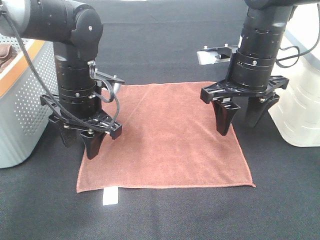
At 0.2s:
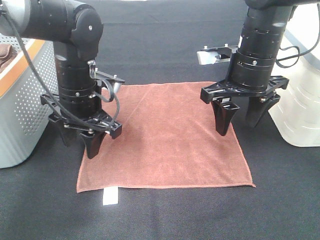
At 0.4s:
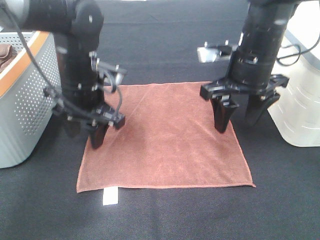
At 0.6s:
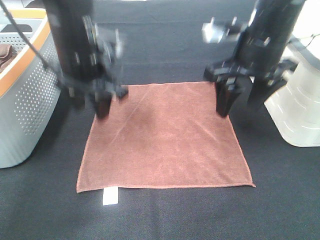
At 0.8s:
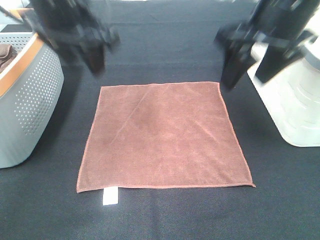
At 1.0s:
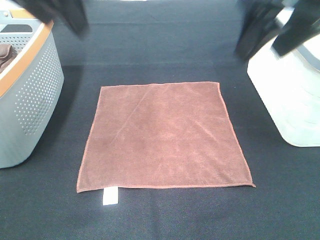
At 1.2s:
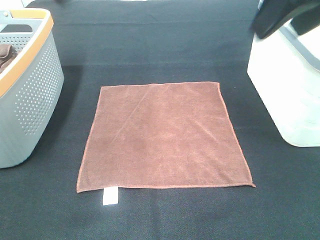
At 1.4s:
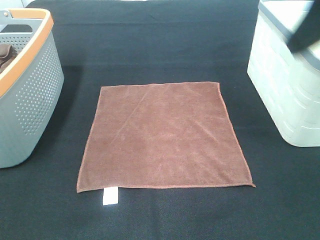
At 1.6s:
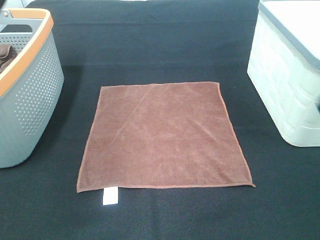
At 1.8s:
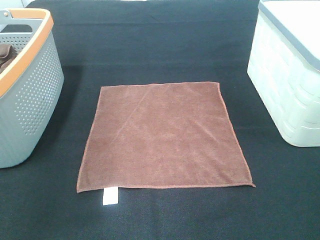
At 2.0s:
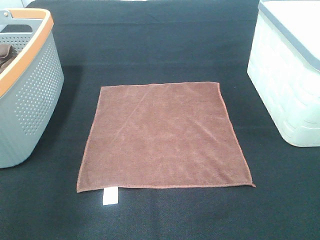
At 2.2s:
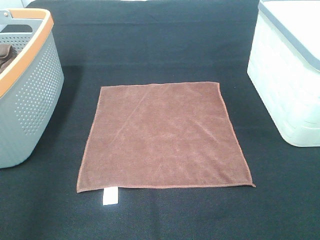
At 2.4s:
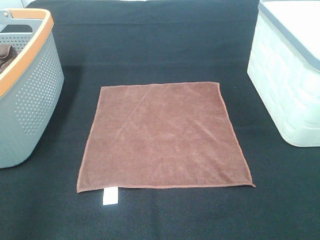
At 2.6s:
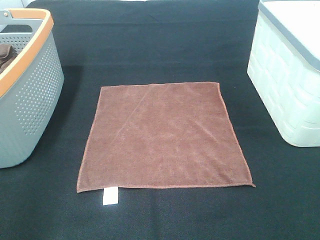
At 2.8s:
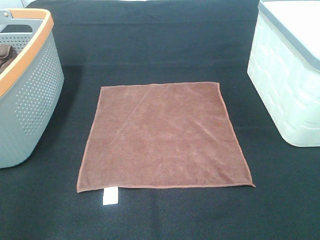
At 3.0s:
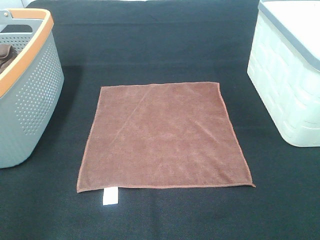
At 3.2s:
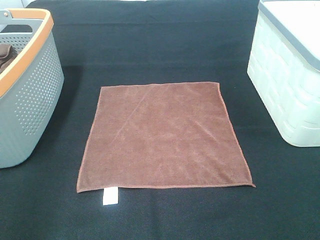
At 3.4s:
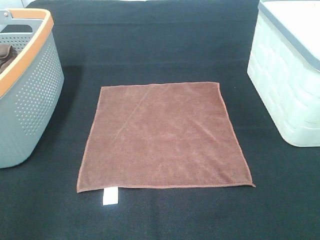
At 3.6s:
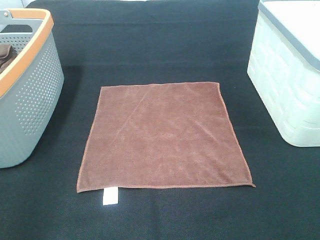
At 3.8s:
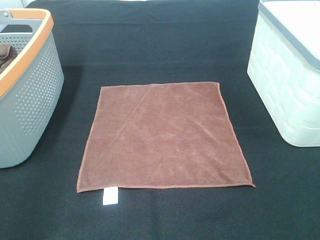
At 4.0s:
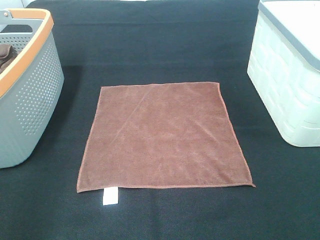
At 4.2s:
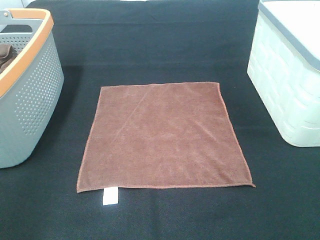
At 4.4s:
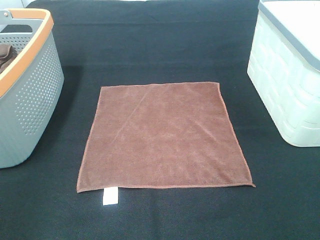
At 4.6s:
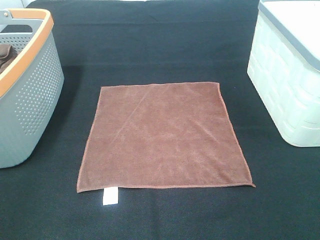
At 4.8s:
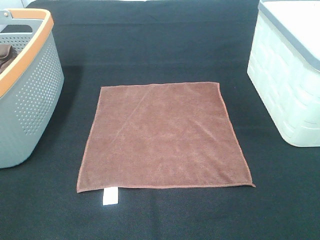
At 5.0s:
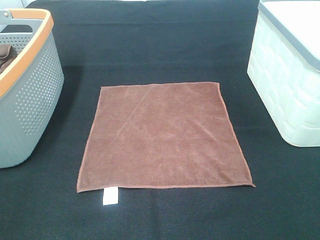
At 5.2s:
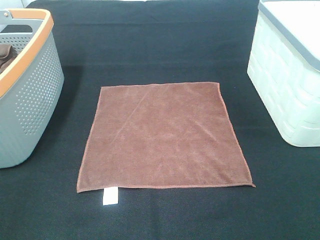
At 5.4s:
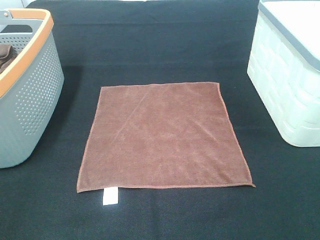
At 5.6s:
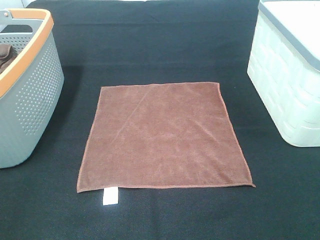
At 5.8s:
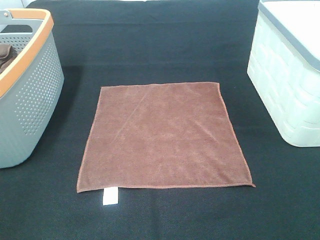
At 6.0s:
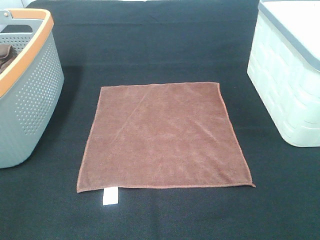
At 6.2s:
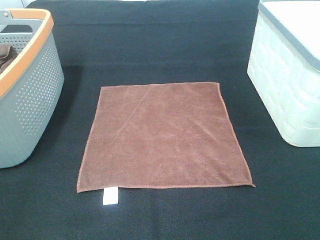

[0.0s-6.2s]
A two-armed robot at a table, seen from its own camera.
Task of the whole recording: Remove the towel and place it.
0.0s to 1.6s: The left gripper shifts approximately 30 cm upward and backward. Meanwhile the right gripper goes about 25 cm backward and upward.
1.6s to 3.2s: The right gripper travels backward and downward by some 15 cm.

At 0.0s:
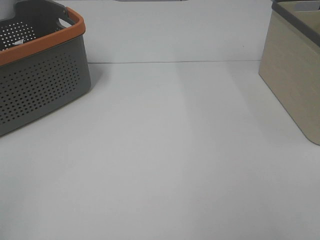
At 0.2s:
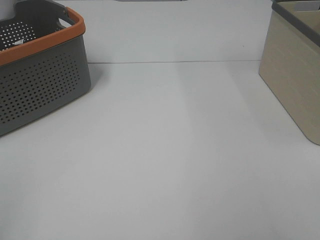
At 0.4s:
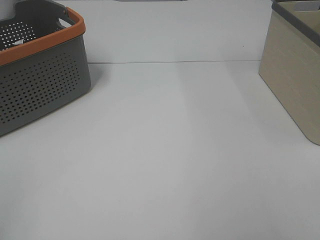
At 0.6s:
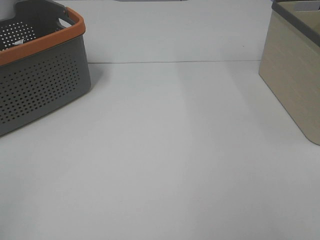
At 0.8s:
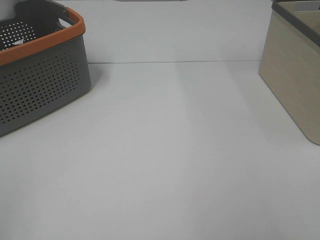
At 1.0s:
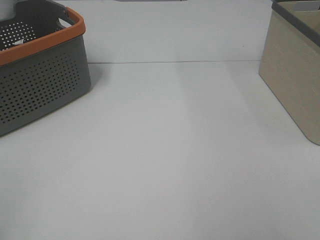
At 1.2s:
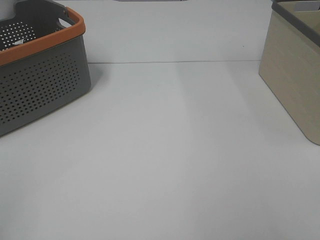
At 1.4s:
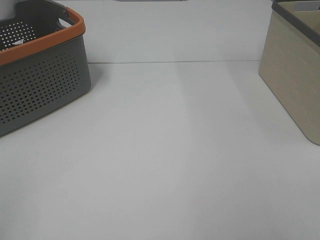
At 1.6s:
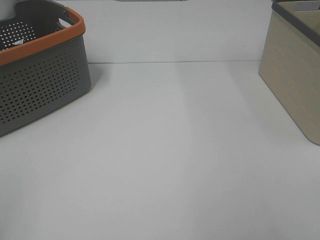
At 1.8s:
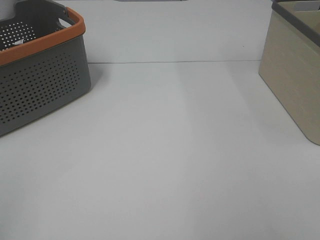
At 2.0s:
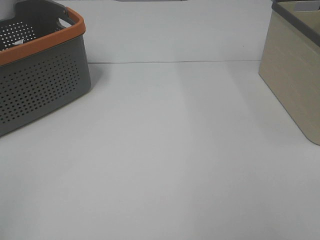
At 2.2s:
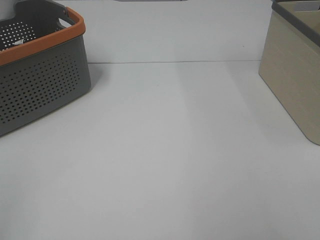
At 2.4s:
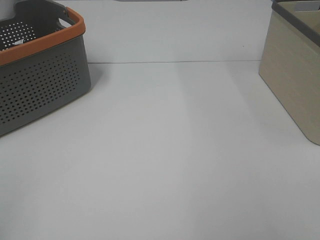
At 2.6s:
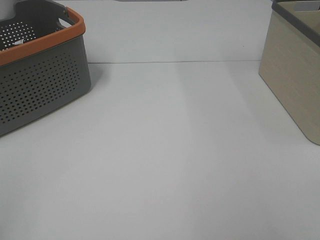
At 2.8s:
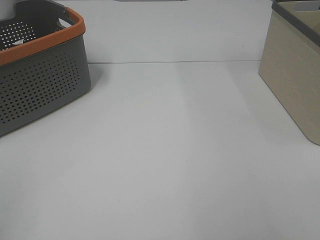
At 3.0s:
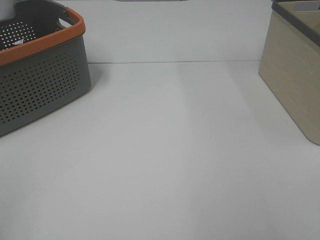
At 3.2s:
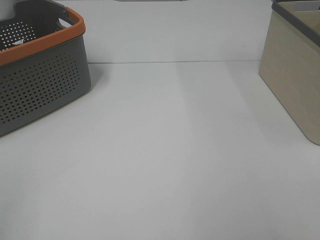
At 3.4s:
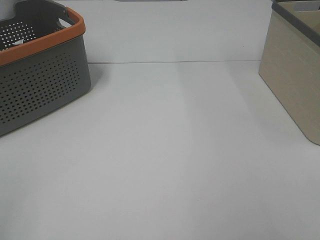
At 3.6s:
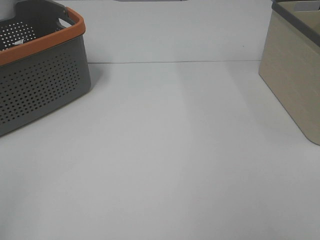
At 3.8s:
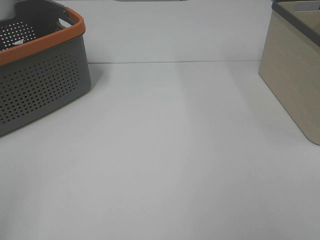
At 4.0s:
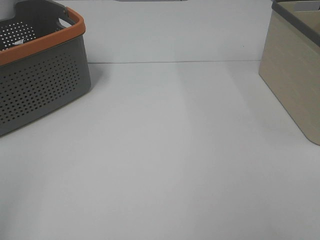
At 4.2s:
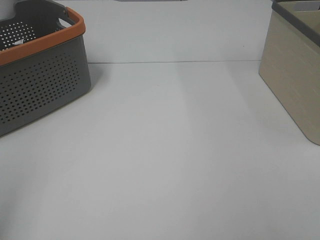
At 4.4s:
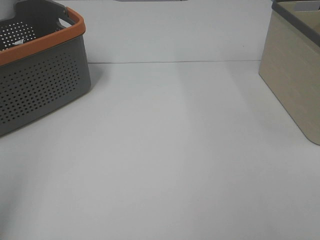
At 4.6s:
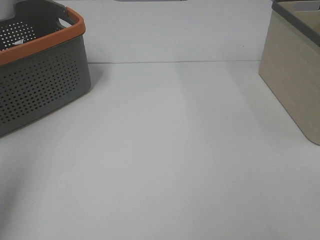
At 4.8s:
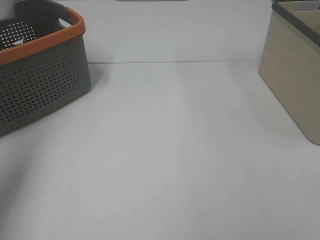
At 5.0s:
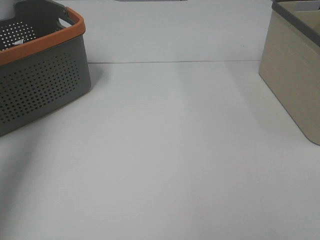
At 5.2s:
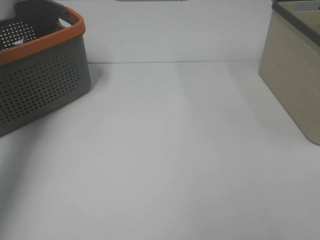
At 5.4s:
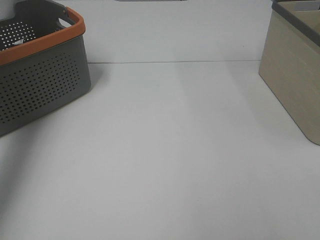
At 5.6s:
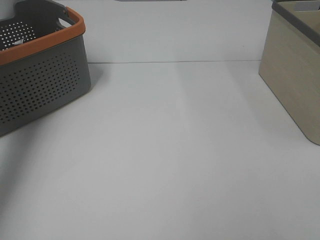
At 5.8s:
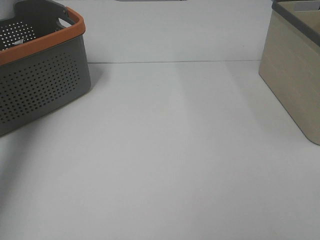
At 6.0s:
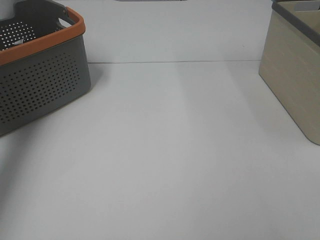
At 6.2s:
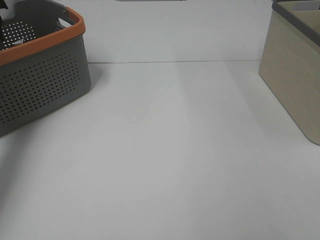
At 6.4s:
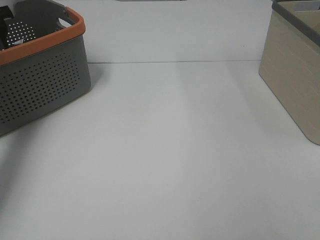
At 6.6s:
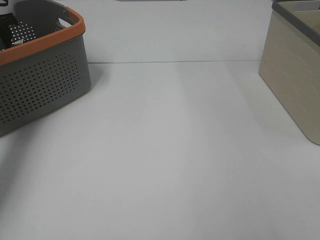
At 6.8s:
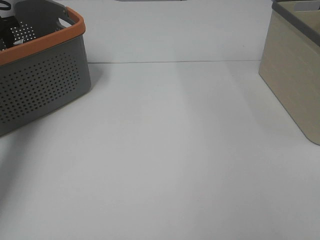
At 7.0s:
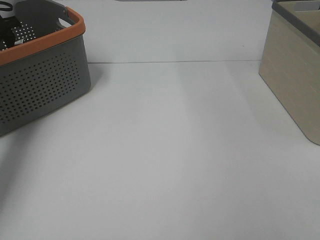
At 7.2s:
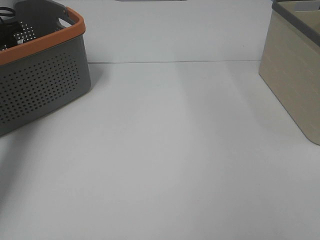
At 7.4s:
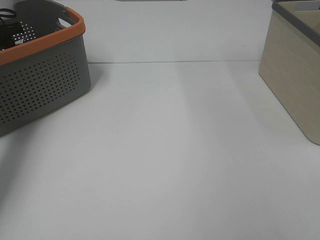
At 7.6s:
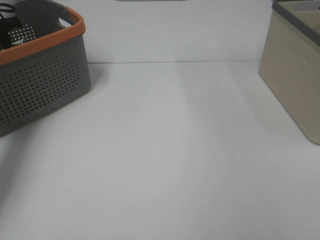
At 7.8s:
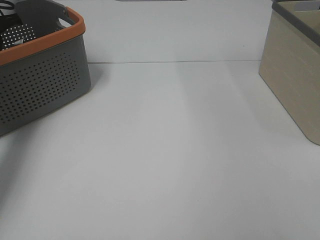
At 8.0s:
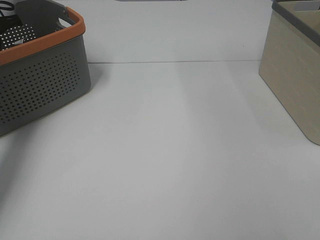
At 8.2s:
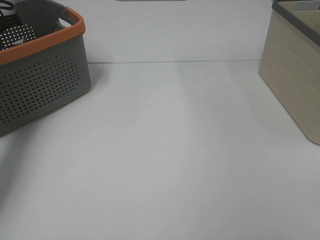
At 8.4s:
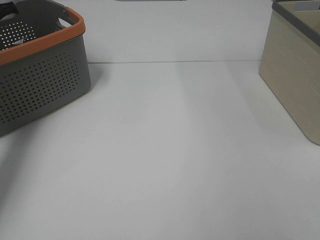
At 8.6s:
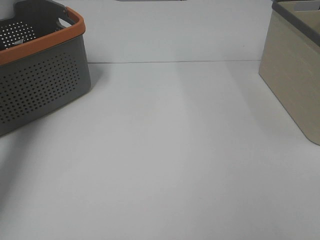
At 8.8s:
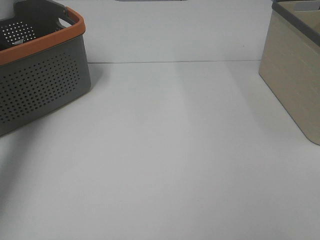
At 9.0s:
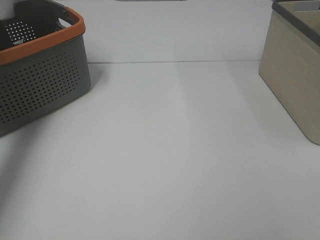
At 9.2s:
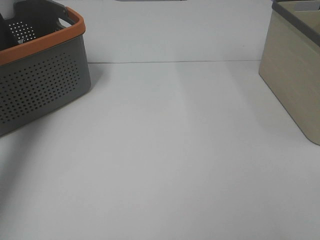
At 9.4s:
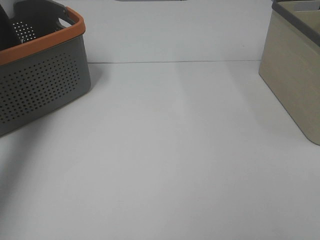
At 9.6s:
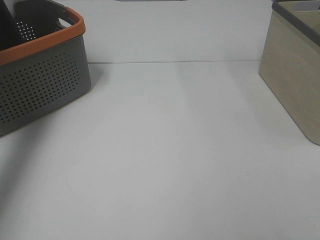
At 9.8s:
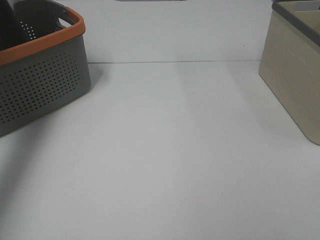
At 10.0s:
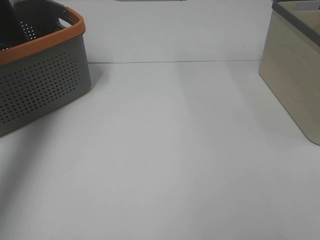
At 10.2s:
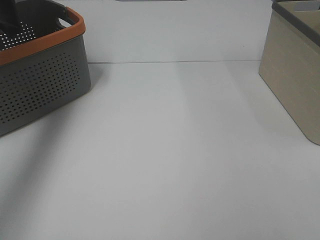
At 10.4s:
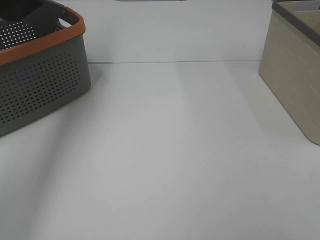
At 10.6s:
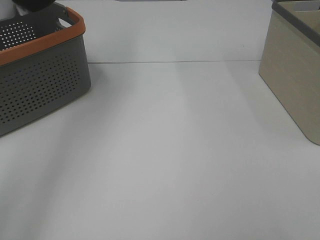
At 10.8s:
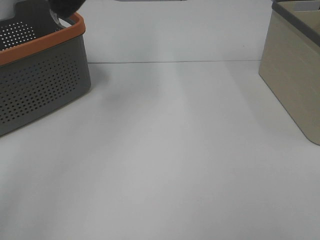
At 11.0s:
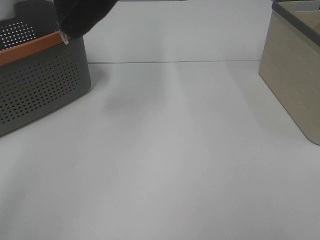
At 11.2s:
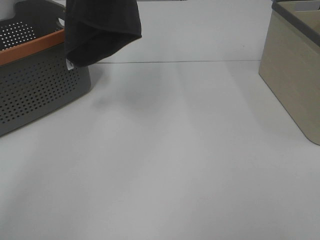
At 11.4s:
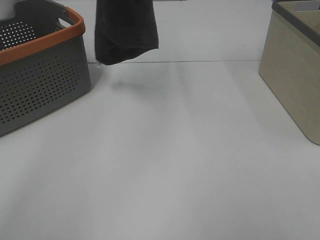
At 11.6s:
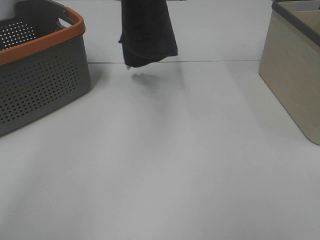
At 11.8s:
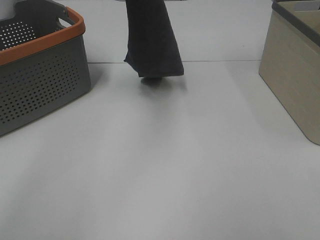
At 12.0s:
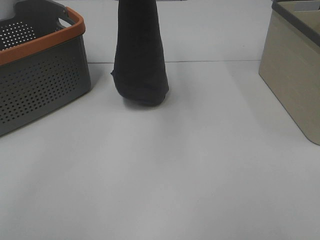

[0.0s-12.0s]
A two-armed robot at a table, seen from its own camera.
Task of the whole recording: Remove the towel and place it.
0.0s to 3.0s: The two grippers keep their place.
4.4s to 6.0s: The left gripper shifts approximately 35 cm forward.
9.0s to 10.4s: The left gripper travels upward, backward and to the right by approximately 30 cm.
10.4s to 12.0s: The left gripper goes some 30 cm to the right and downward.

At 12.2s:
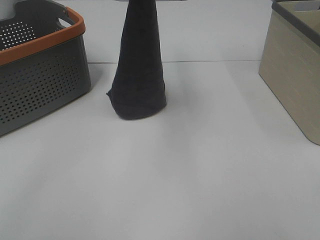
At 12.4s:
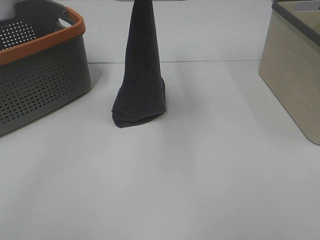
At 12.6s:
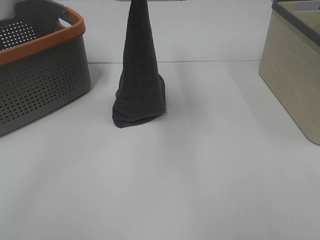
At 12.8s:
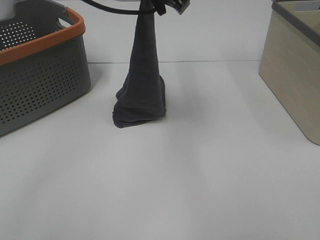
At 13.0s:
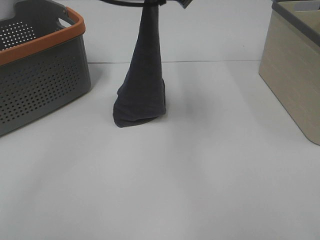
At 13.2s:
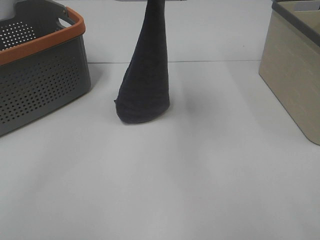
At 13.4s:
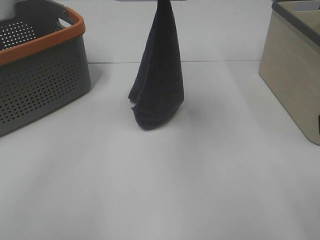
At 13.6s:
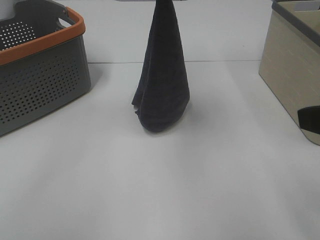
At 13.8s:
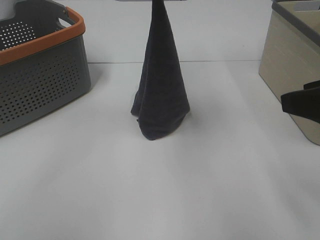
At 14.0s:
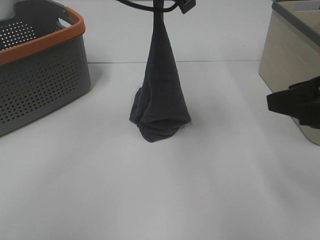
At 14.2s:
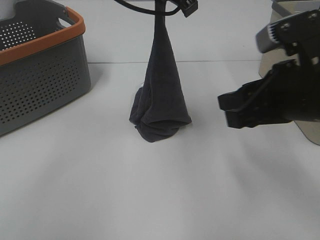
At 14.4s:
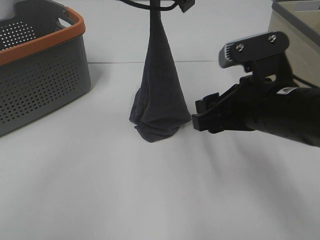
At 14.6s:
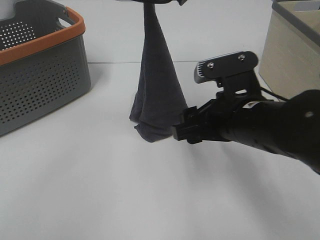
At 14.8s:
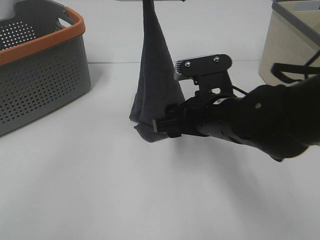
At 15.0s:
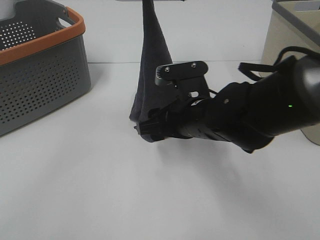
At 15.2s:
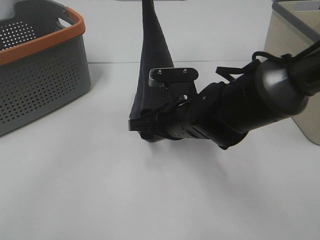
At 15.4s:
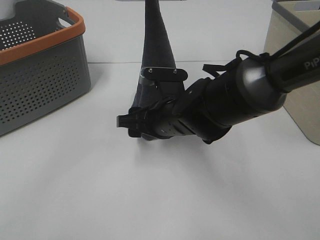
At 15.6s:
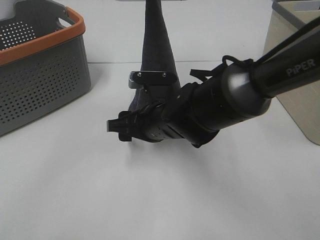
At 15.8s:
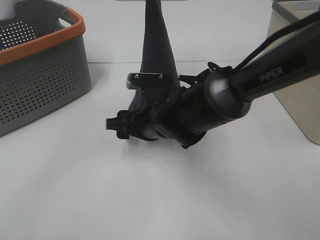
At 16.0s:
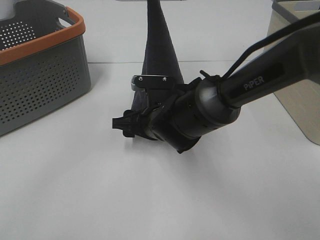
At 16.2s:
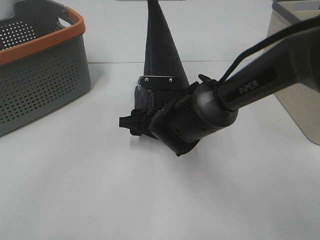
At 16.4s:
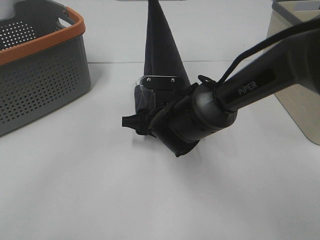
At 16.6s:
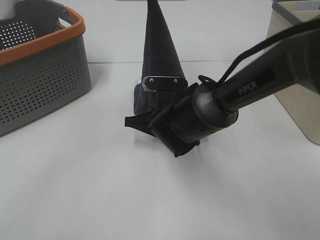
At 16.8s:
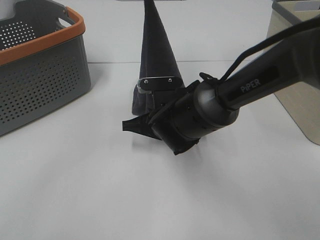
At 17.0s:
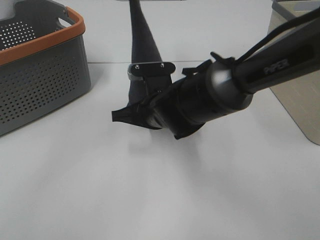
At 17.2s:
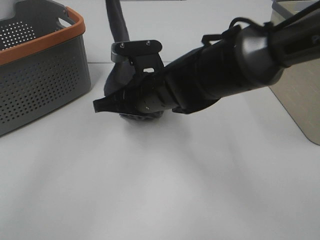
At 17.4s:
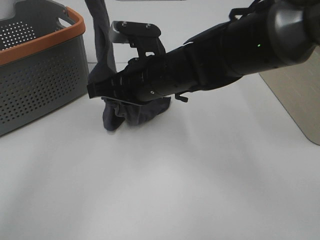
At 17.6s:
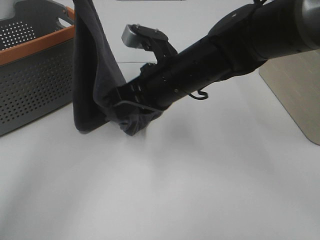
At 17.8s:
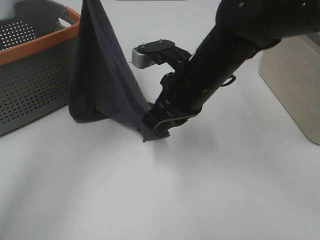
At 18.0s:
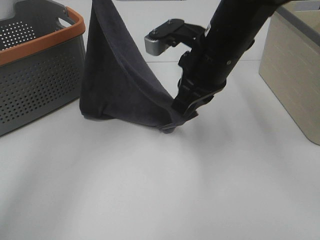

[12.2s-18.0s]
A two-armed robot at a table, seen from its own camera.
Task of the whole recording: Remove the towel and place it.
Step, 12.2s to 15.2s: Right hand: grab a corner of the grey towel and straighten it.
Step, 15.4s to 17.0s: Left hand: spread the grey towel flat on the table.
Step, 15.4s to 17.0s: Right hand: spread the grey towel flat on the table.
12.2s to 13.6s: The right gripper travels forward by approximately 15 cm.
13.6s to 15.0s: The right gripper heads to the left, downward and forward, covering approximately 25 cm.
15.0s to 16.6s: The right gripper moves downward, approximately 5 cm, and closes up.
16.6s to 18.0s: The right gripper is displaced upward by approximately 15 cm. The left gripper shifts some 15 cm to the left and forward.
